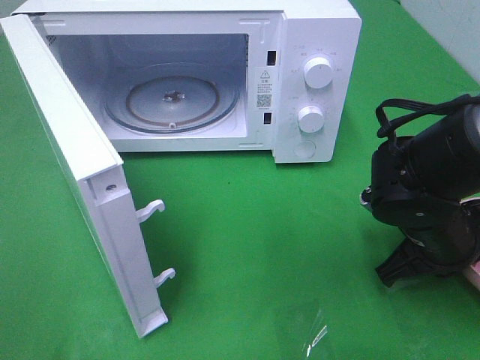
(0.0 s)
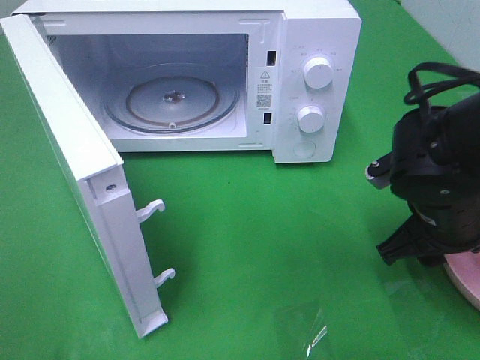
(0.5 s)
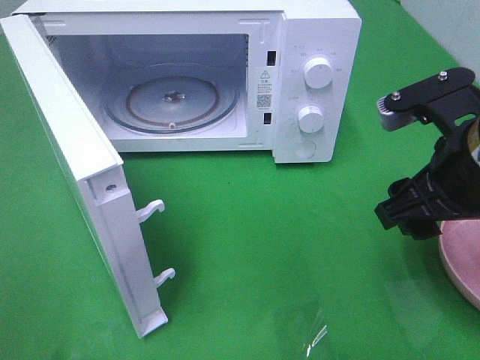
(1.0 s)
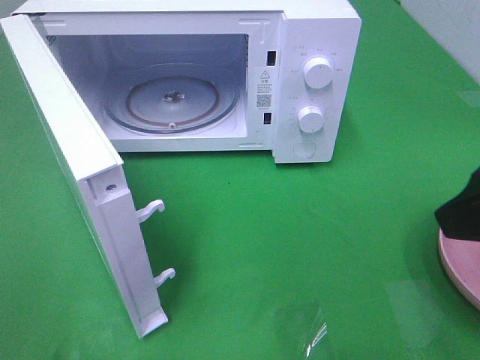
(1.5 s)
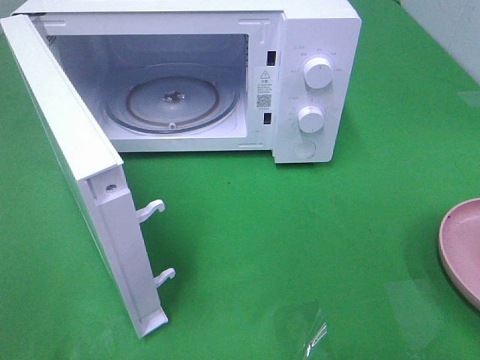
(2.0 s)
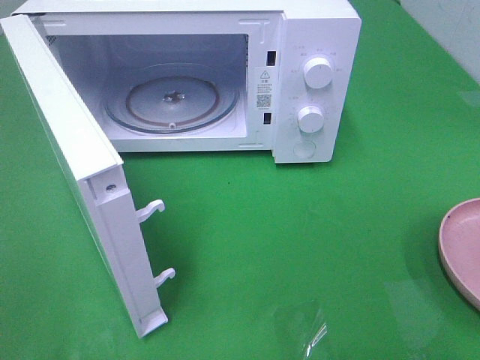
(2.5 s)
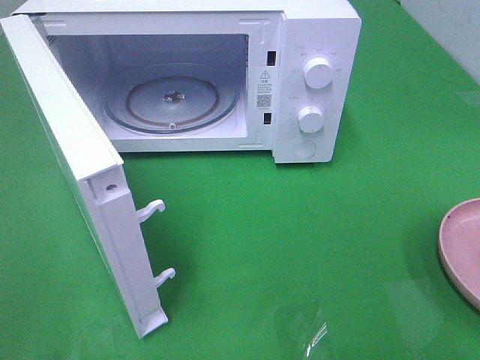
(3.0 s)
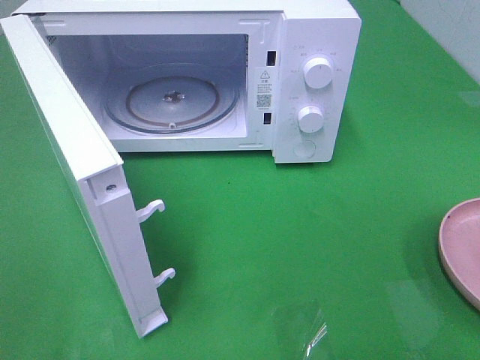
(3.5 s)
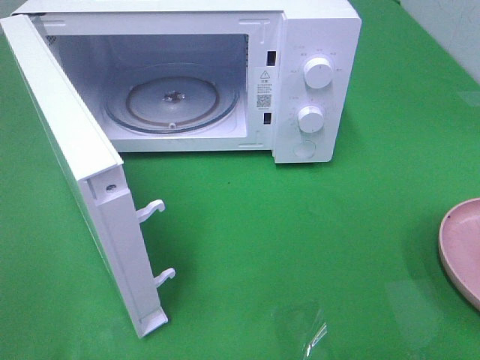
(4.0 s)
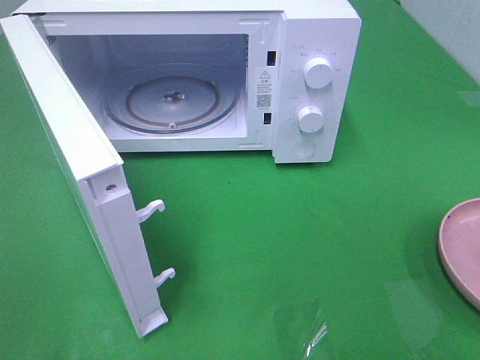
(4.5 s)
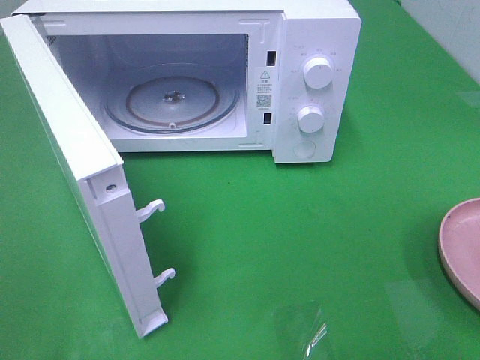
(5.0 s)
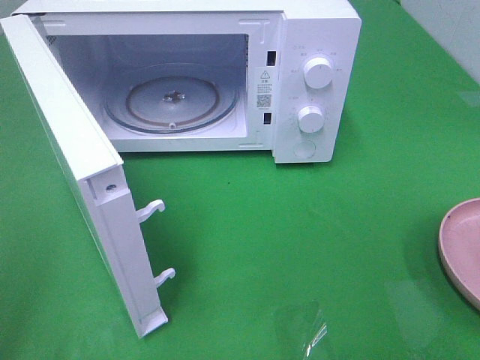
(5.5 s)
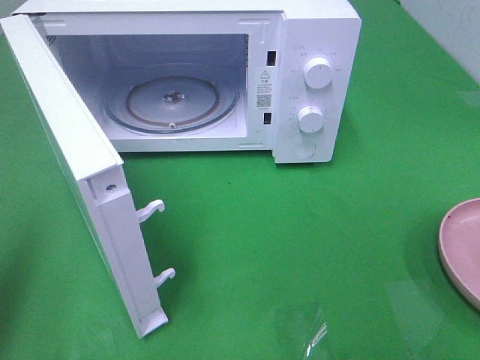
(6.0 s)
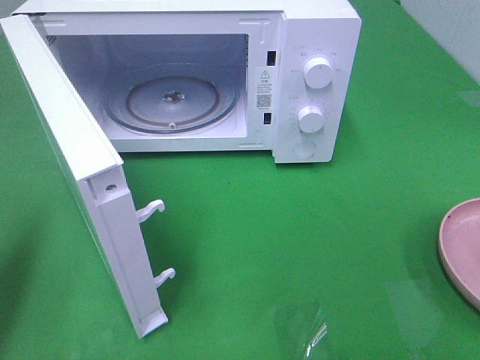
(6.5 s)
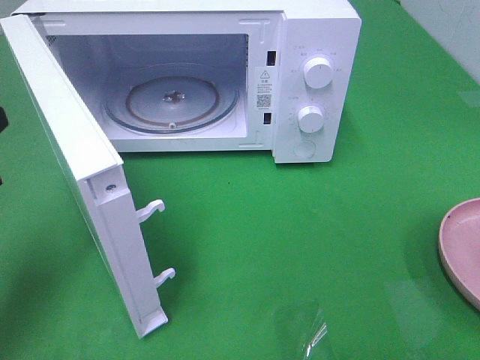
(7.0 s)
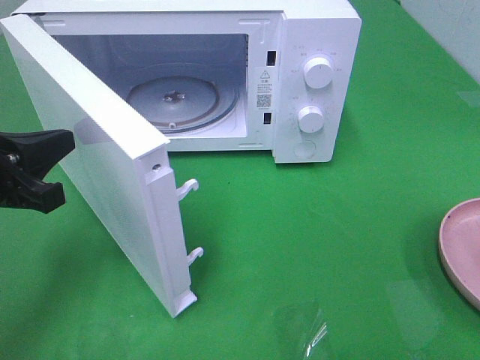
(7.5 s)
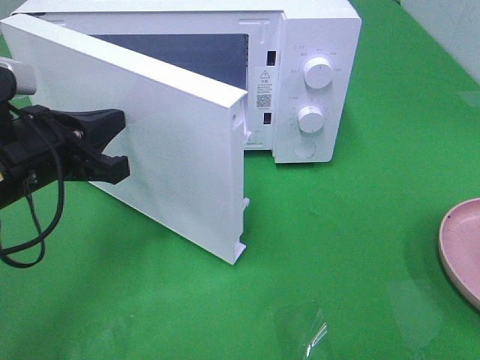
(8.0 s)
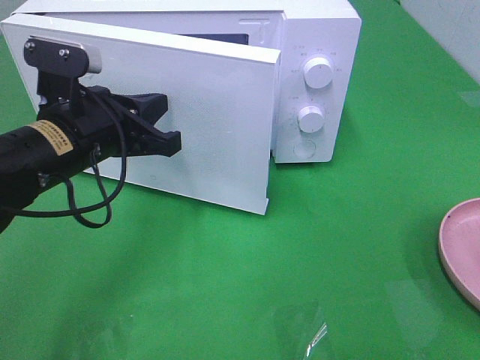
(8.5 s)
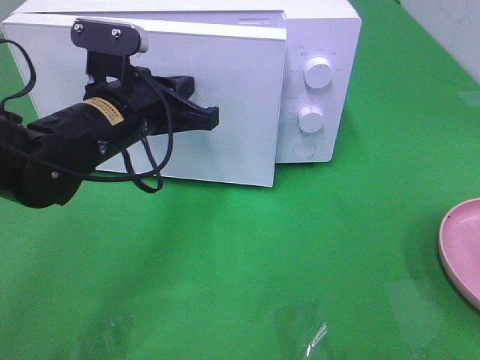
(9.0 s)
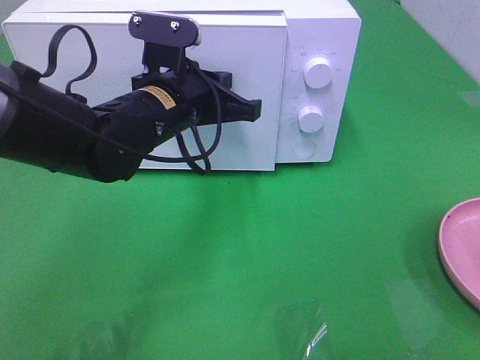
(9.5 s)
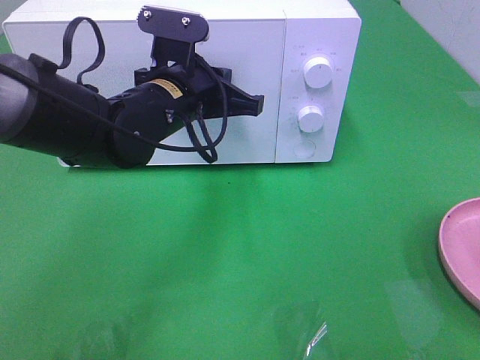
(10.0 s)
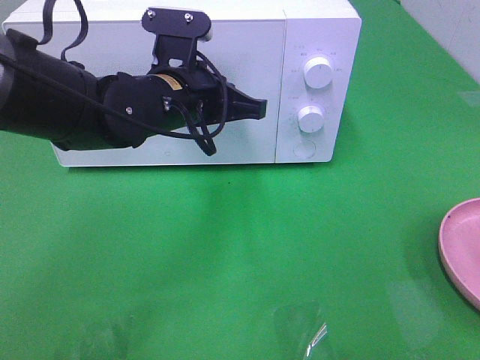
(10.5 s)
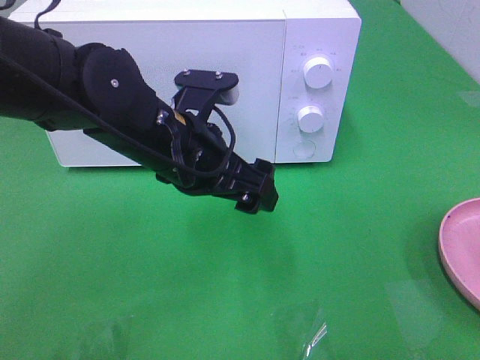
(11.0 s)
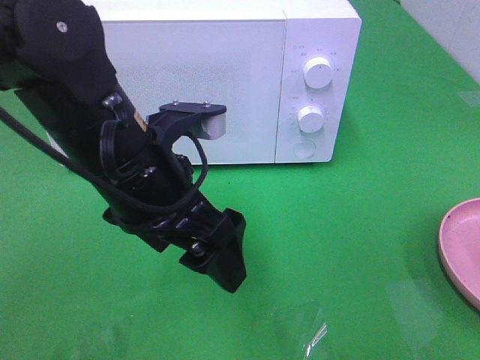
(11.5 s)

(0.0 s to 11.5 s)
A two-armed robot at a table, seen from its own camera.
Task of the whole recording: Heat the burger.
Step, 1.5 s - 10.5 s: Left hand: close the microwave door.
0.0 s - 2.0 s: The right gripper is displaced upward and backward by about 30 cm, and opens.
4.0 s - 6.0 s: The left gripper moves forward, roughly 15 cm, and closes.
6.0 s - 7.5 s: The left gripper moves downward, forward and to the right, about 15 cm.
7.5 s - 9.5 s: The left gripper goes about 20 cm to the right and forward.
9.5 s - 11.5 s: The left gripper travels backward by roughly 10 cm, and opens up.

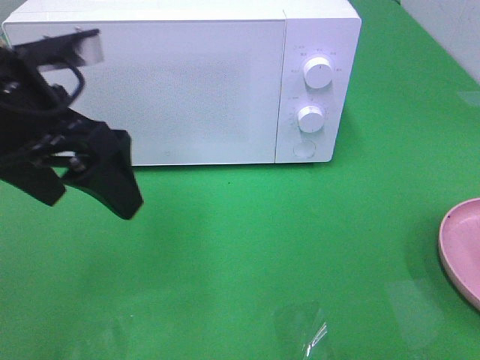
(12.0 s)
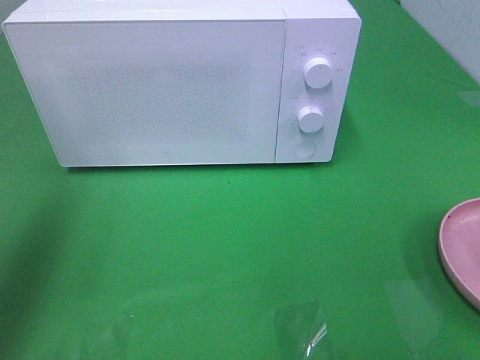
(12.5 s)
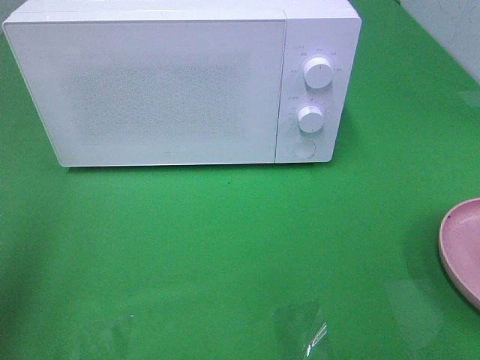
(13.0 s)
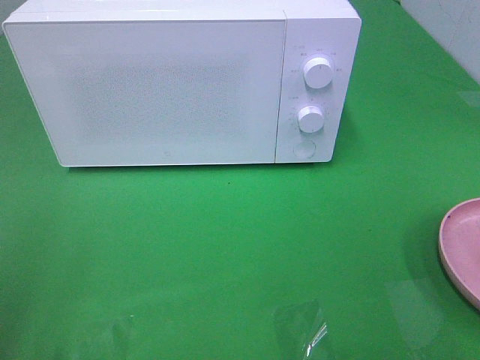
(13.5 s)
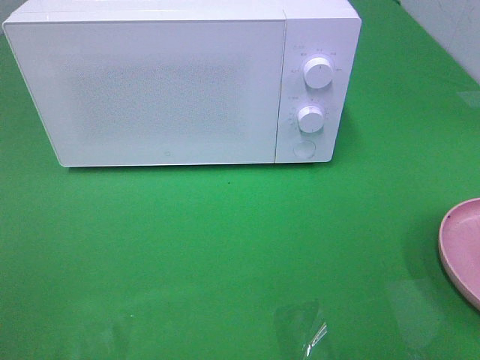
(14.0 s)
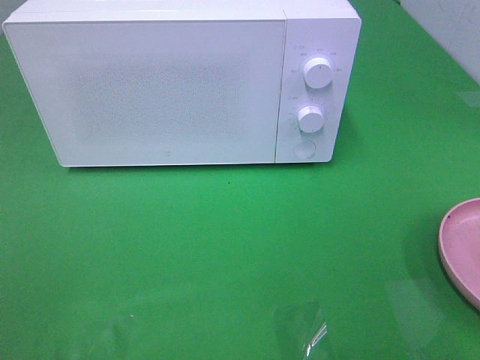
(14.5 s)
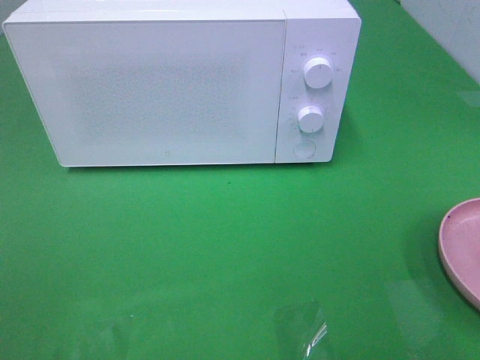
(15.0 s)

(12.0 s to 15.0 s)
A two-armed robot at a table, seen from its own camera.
Task of the whole recording: Heat the burger.
12.0 s - 13.5 s: The left gripper travels backward and to the left by about 20 cm.

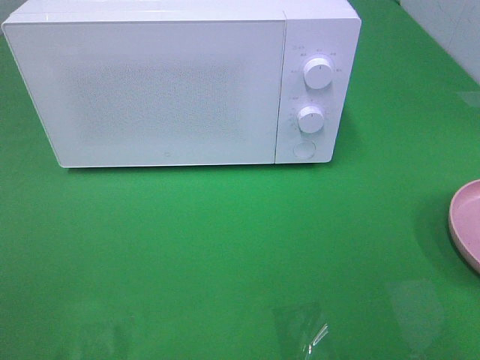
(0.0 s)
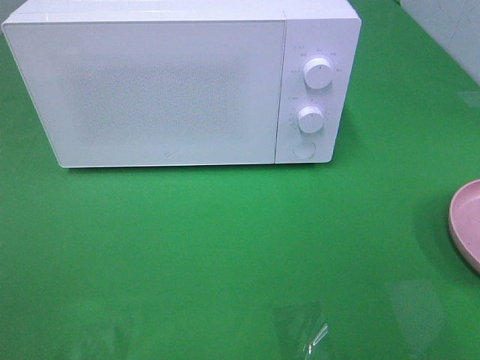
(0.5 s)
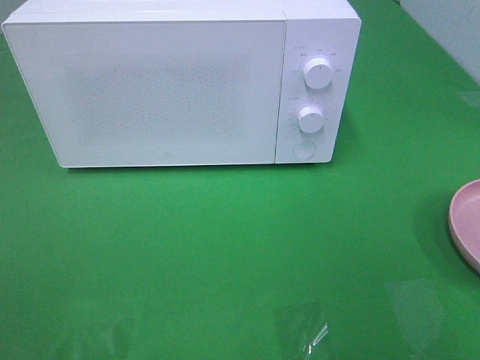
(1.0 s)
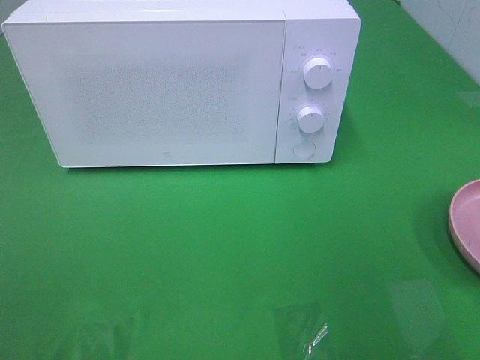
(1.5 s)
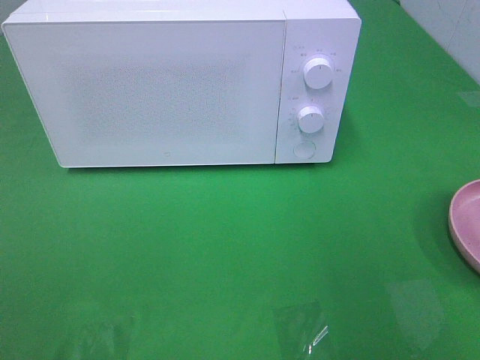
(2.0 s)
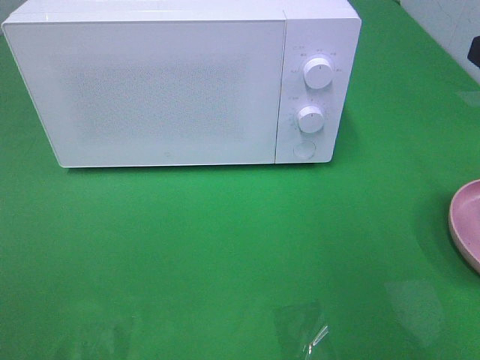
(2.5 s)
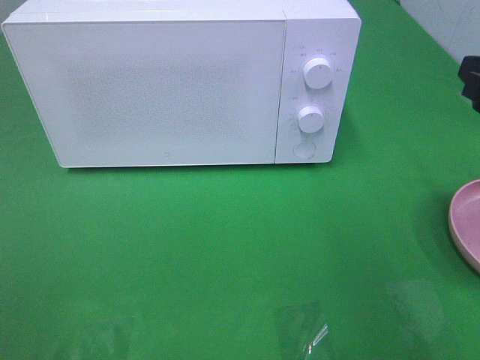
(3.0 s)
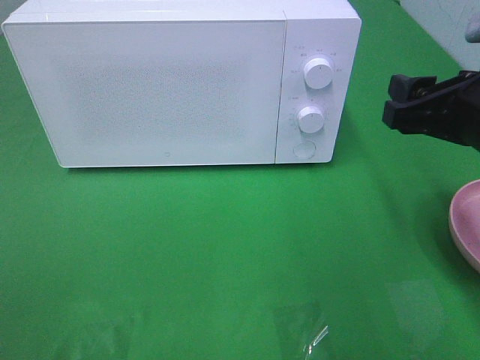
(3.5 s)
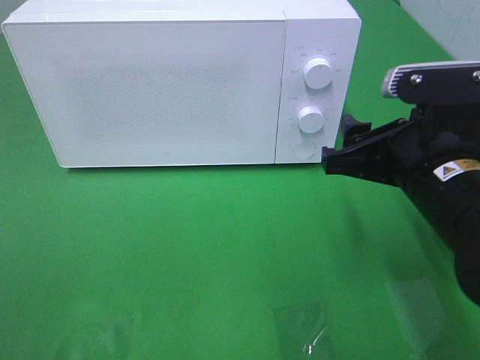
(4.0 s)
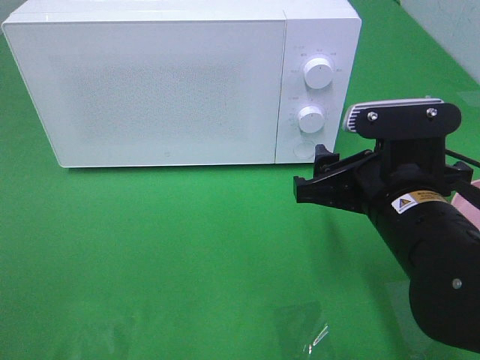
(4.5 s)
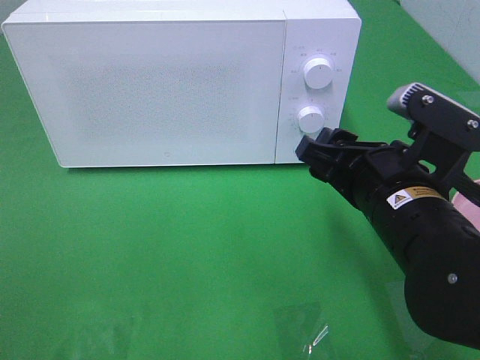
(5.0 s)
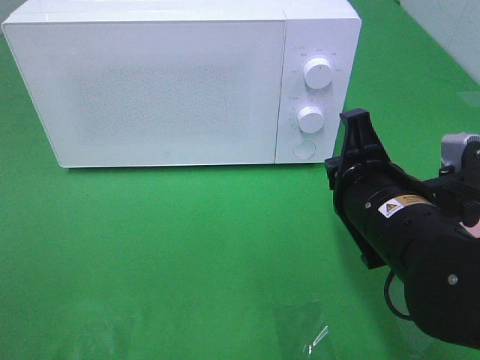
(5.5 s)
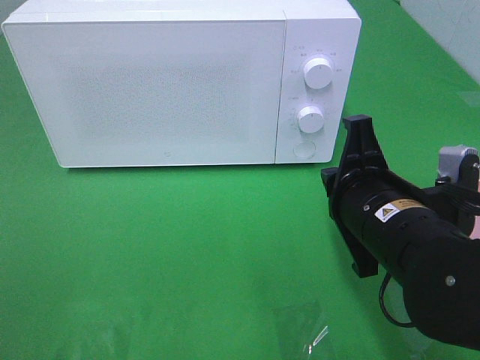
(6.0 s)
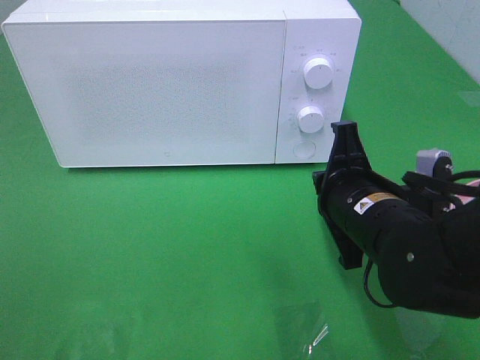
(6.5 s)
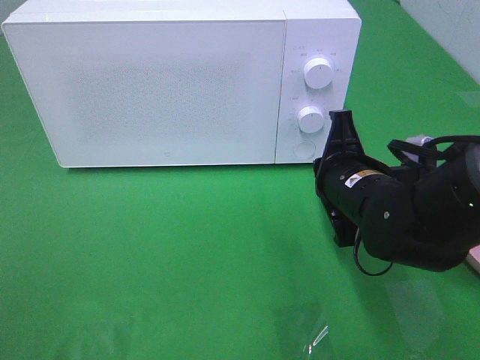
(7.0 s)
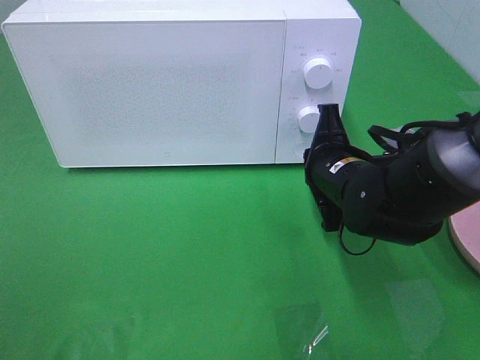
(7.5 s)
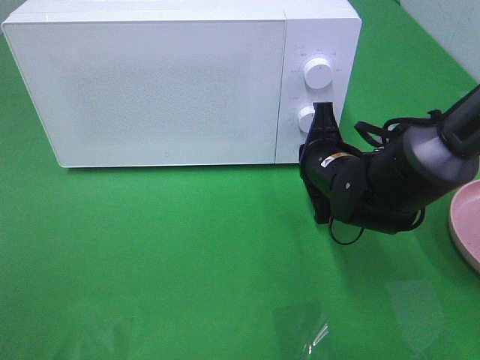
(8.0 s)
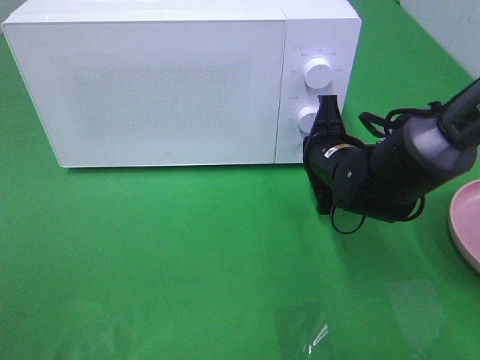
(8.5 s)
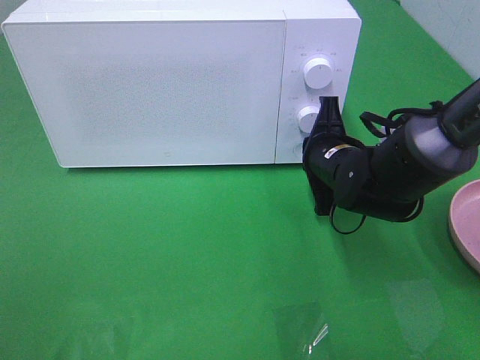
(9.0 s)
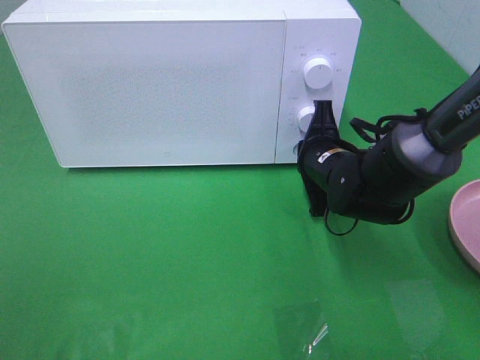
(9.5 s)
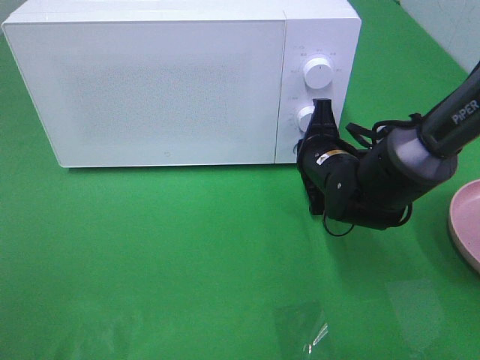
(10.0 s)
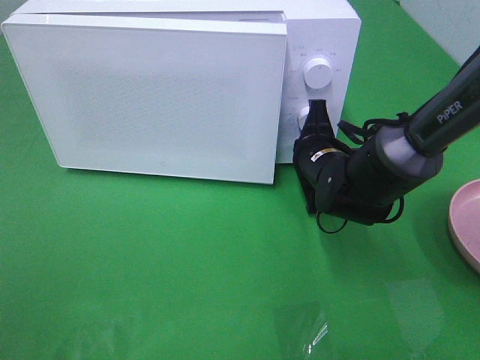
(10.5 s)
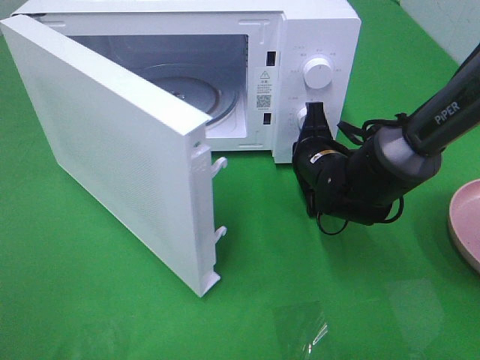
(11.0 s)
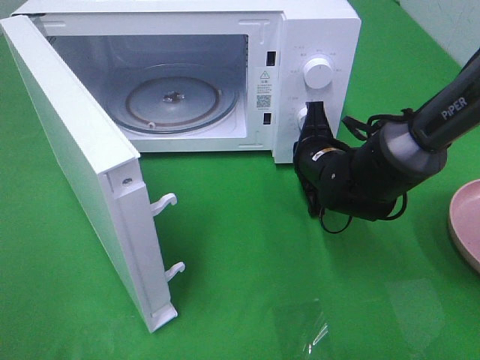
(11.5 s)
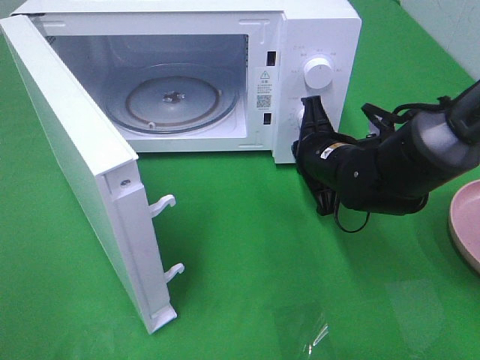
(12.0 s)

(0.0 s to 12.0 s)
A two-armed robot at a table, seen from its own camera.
Task of the whole recording: Heat the burger.
Step, 0.0 s - 11.5 s: Right hand: press the switch.
2.0 s - 4.0 s: The right gripper is displaced to the left and downward by roughly 15 cm.
4.0 s - 6.0 s: The right gripper closes up.
6.0 s - 8.0 s: The right gripper goes roughly 15 cm forward and downward.
8.0 s - 10.0 s: The grippers make only small movements.
